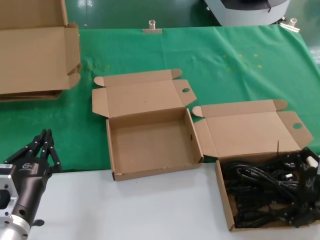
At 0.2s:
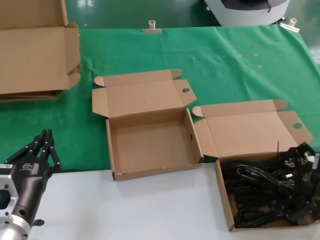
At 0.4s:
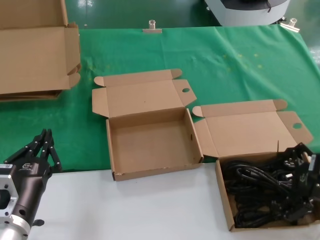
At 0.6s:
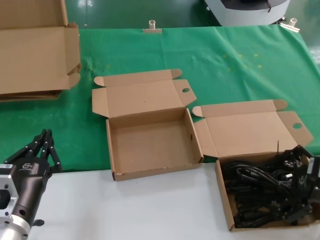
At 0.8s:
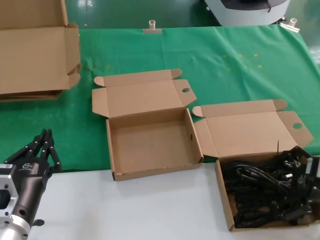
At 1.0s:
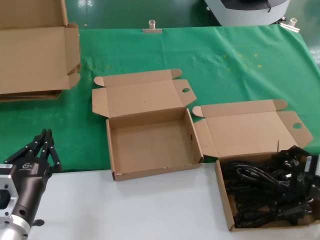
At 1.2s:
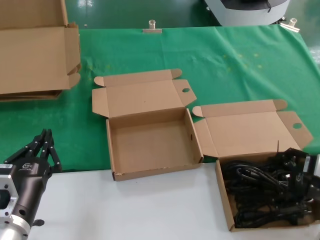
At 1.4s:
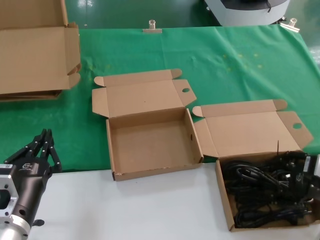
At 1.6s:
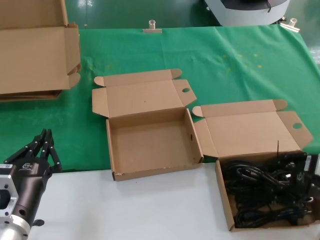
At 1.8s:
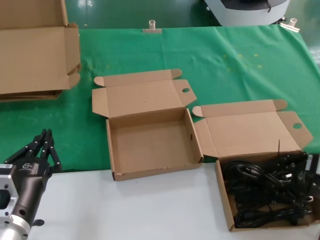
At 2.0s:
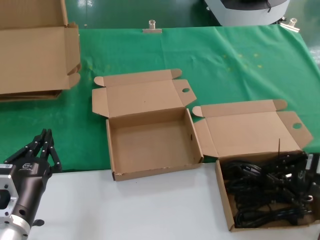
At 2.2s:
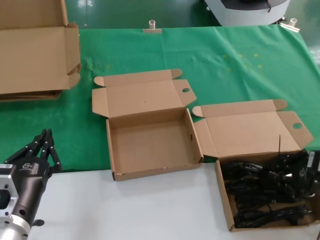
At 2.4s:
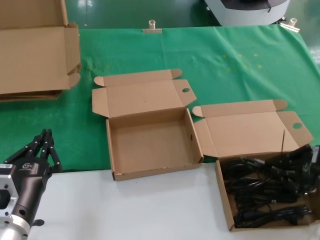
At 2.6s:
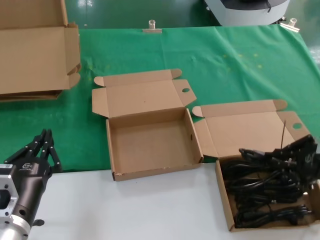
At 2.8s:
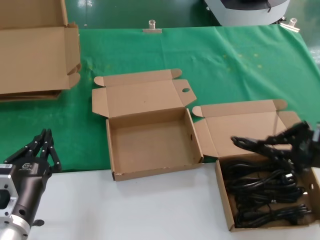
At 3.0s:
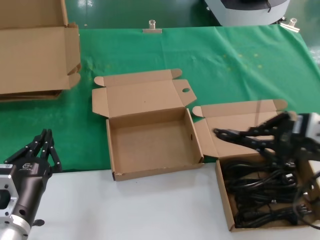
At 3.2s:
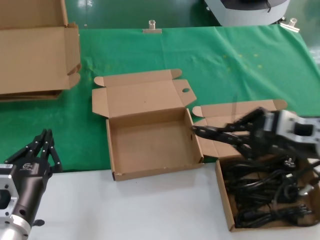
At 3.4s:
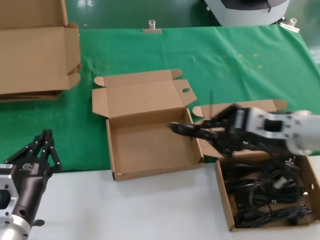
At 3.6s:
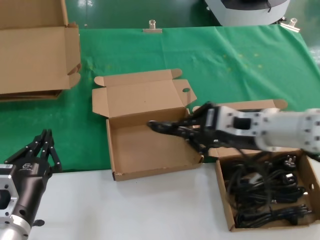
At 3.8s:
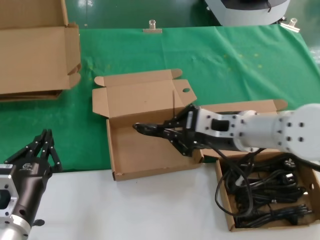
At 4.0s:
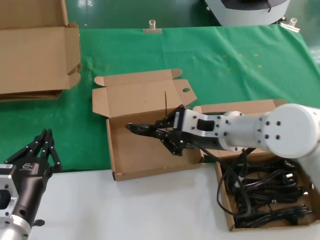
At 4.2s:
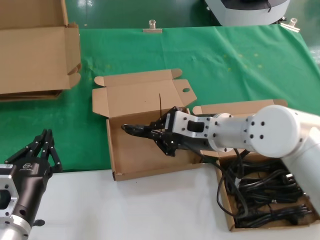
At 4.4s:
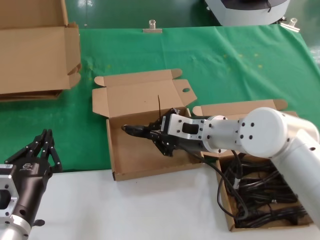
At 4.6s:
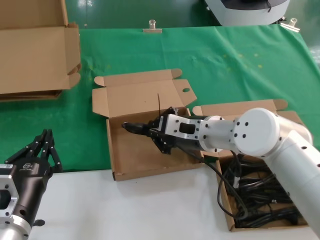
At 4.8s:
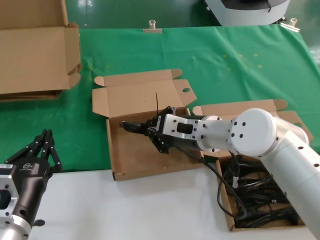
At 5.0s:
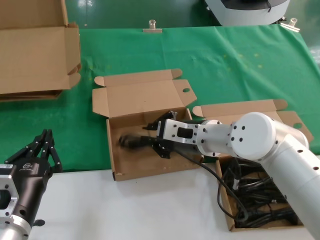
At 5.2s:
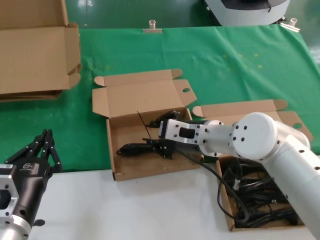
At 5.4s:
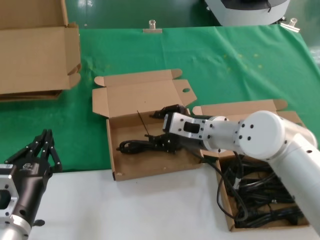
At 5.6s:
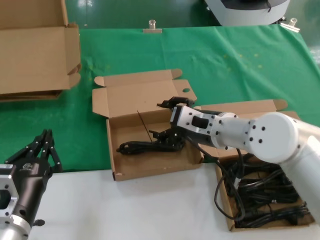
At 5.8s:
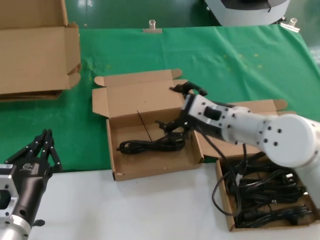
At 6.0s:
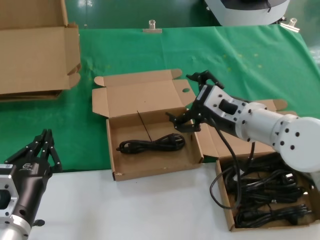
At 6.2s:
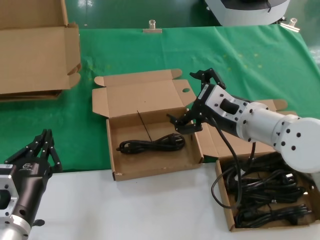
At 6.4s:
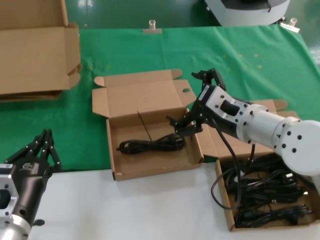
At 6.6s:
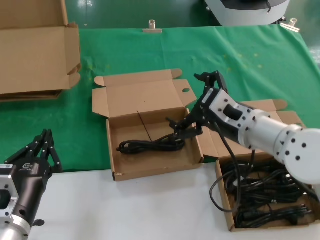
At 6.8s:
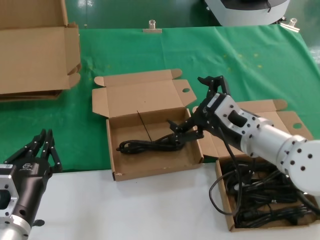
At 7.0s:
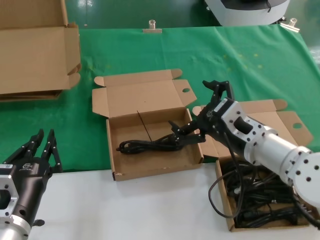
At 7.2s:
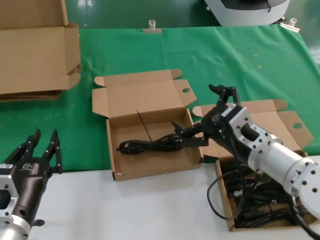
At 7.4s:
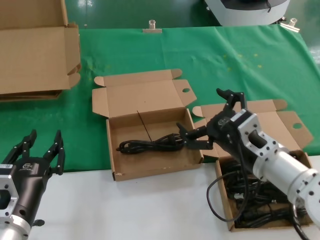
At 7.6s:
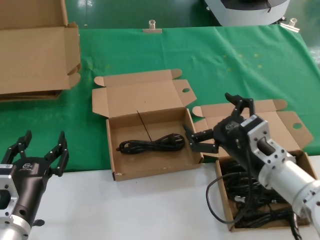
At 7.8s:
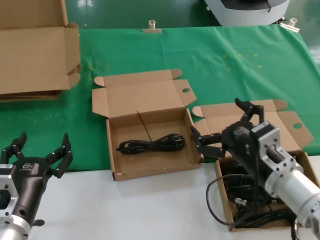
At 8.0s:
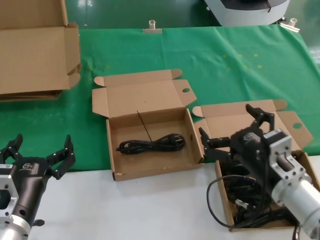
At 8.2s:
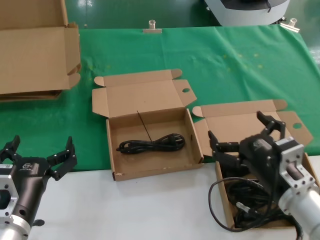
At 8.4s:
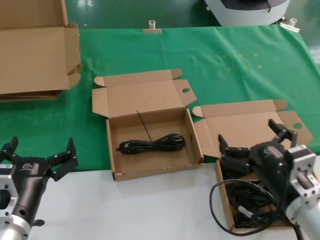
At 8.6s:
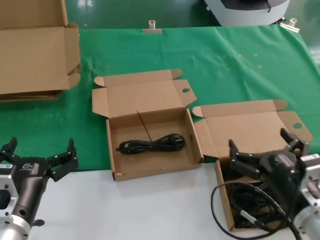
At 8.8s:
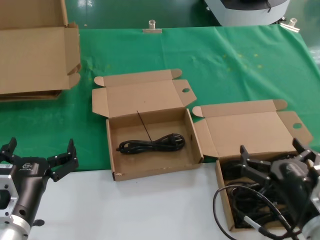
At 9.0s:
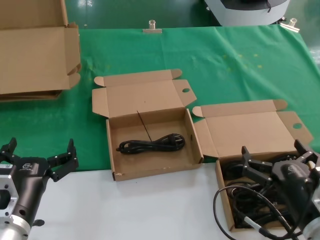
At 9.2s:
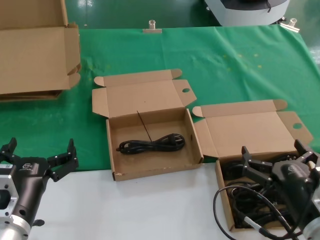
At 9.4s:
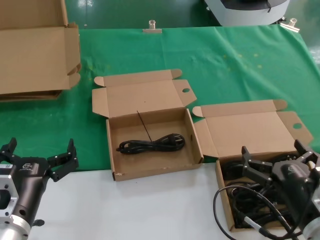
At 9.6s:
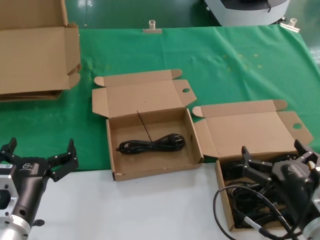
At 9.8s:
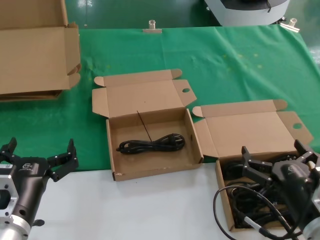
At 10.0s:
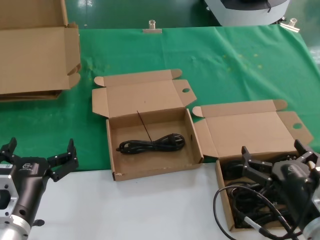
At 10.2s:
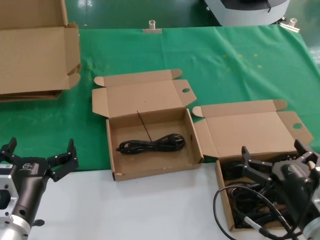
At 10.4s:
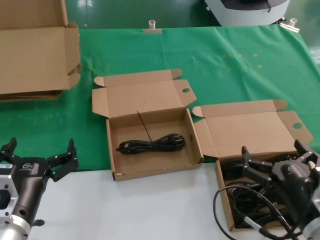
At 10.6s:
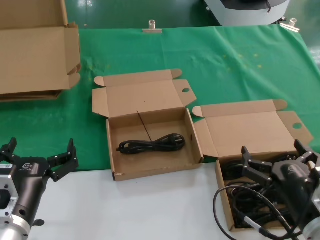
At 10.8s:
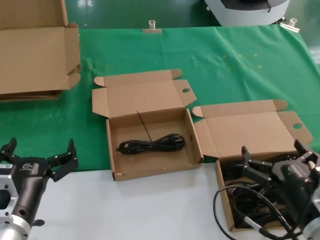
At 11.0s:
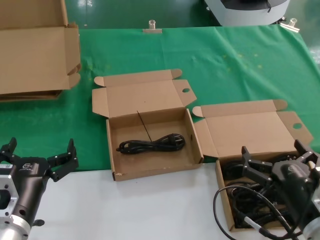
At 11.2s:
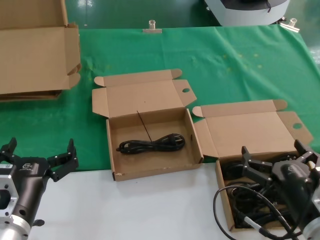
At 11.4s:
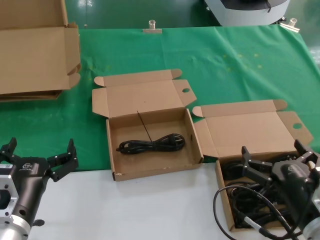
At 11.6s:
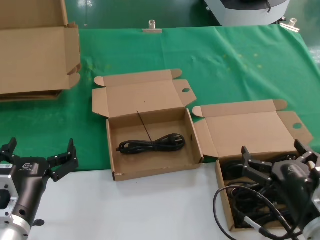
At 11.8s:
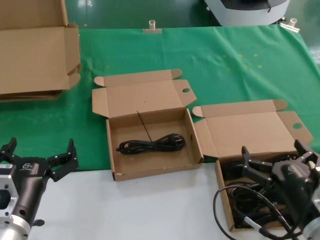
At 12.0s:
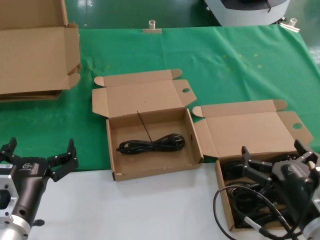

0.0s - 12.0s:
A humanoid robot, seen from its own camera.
Task of the whole recording: take the parts from the box containing them and put them into an empty box.
Step, 2.0s - 5.0s: Place the data cable in the another box.
0.0s - 1.6s: The hands move only a little.
1.6s - 3.0s: The right hand is displaced upward by roughly 10 cm.
3.0s - 4.4s: The right hand goes about 25 cm to the left and forward.
4.4s - 6.0s: The right hand shifts by about 5 cm.
6.0s - 7.6s: The right hand shifts about 10 cm downward and backward.
7.6s - 9.0s: The right hand goes some 15 cm backward, downward and to the right.
9.0s - 12.0s: Both hands stay about where they are.

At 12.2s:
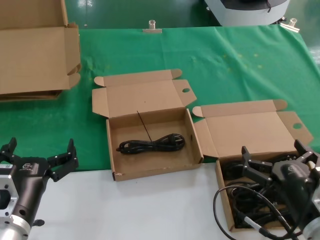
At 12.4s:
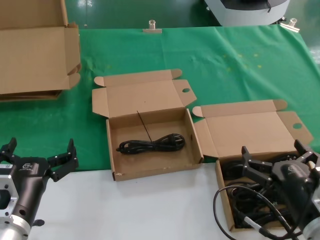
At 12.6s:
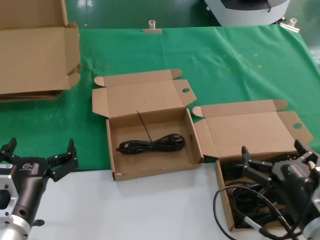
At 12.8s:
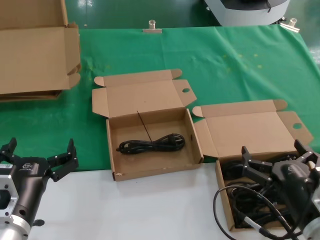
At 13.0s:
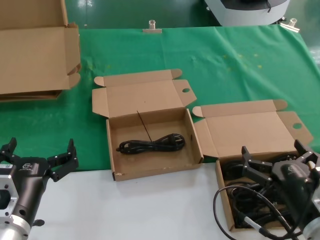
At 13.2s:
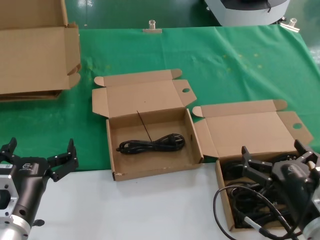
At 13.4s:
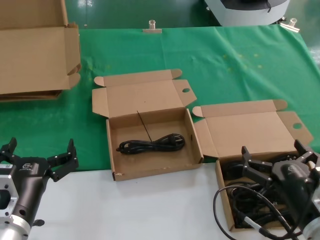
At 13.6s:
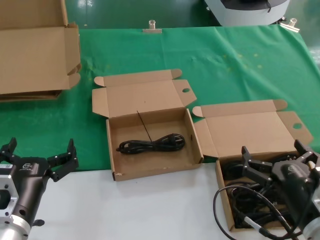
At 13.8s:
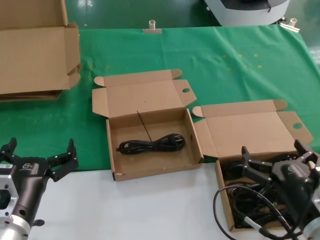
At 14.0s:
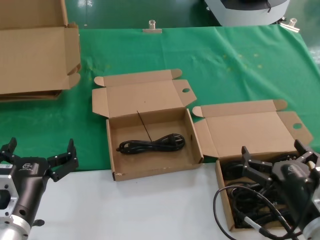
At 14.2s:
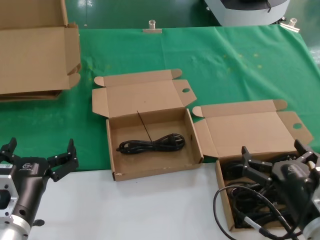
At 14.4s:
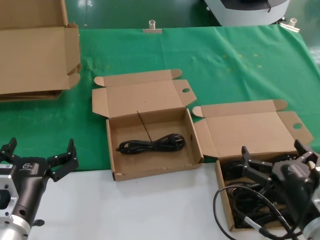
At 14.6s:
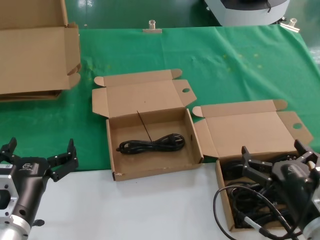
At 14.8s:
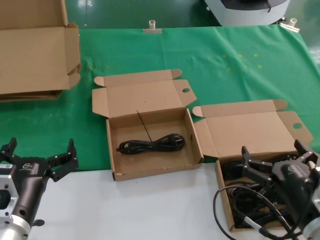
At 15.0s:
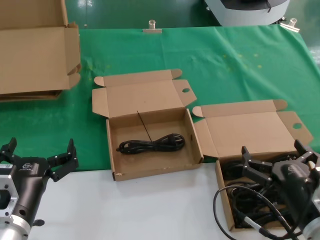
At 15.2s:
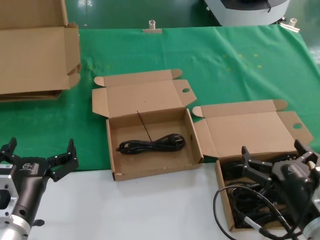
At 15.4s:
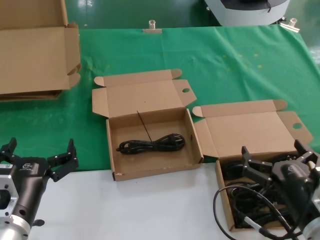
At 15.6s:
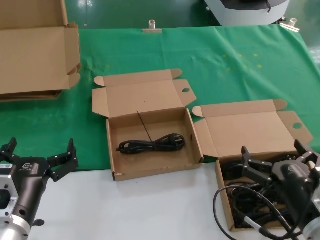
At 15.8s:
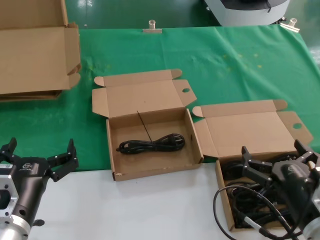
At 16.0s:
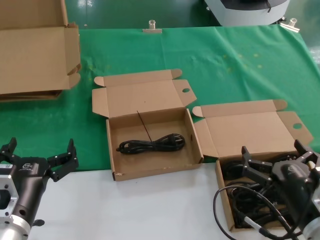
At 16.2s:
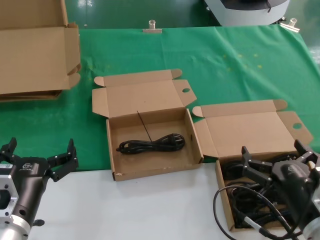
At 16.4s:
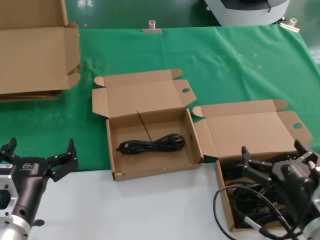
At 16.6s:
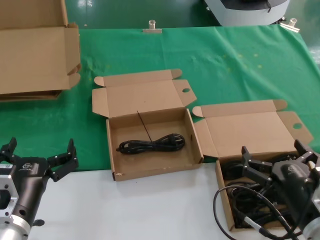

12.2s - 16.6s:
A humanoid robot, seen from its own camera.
Task of the whole recording: take the parts from the box containing them and put them into an empty box.
12.2s - 16.6s: Both hands stay about where they are.

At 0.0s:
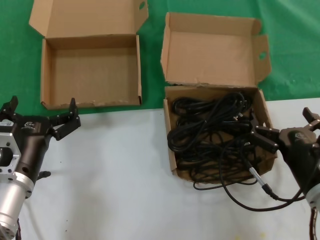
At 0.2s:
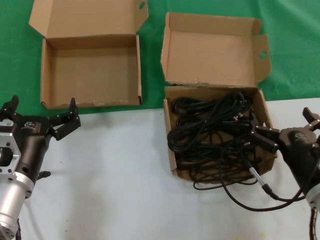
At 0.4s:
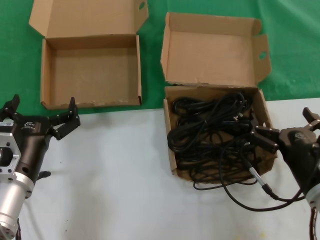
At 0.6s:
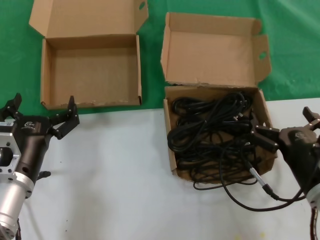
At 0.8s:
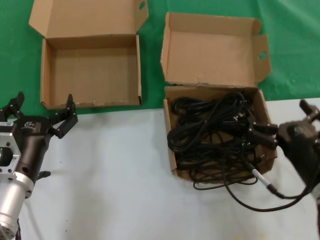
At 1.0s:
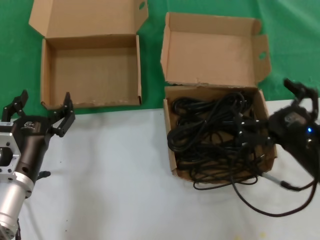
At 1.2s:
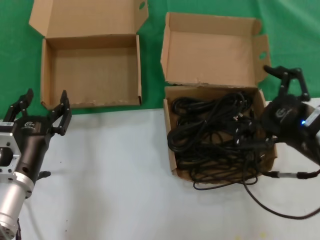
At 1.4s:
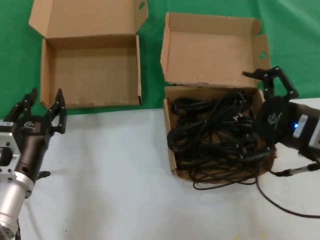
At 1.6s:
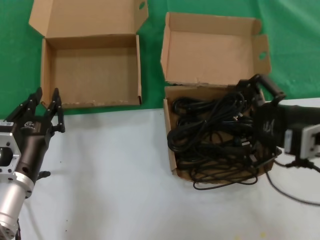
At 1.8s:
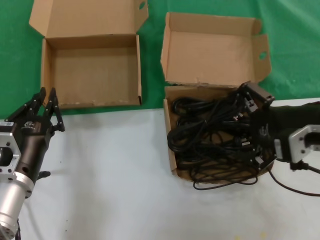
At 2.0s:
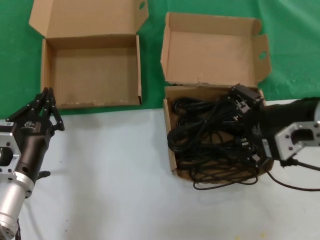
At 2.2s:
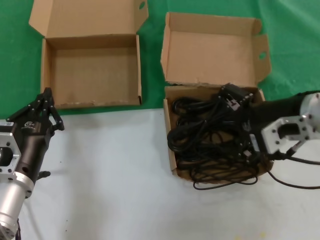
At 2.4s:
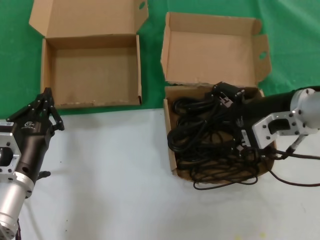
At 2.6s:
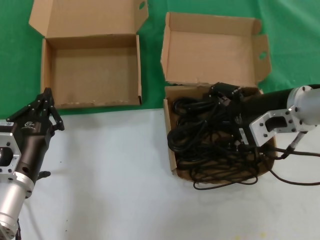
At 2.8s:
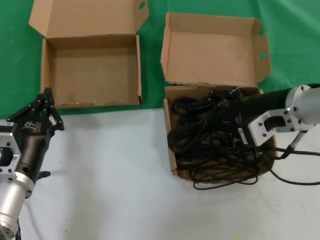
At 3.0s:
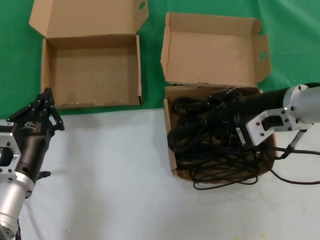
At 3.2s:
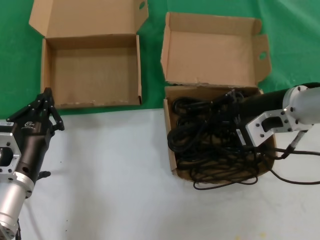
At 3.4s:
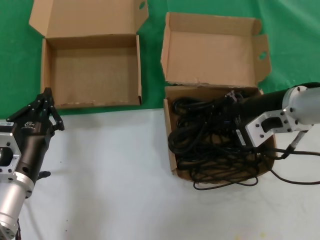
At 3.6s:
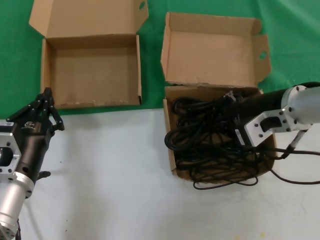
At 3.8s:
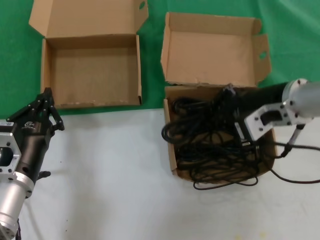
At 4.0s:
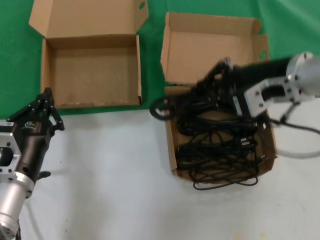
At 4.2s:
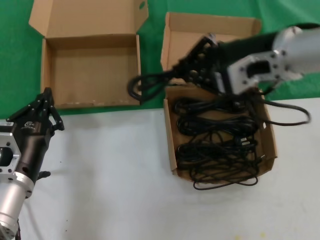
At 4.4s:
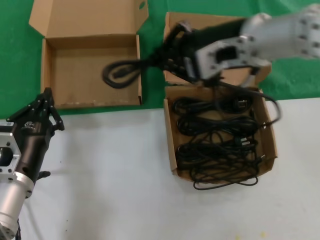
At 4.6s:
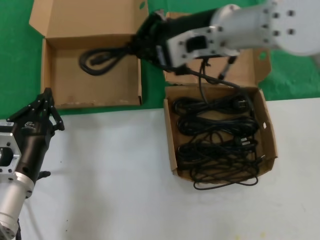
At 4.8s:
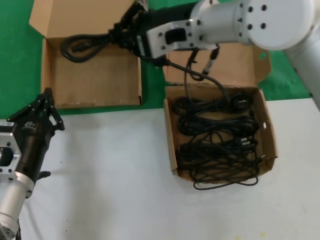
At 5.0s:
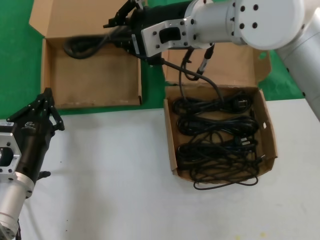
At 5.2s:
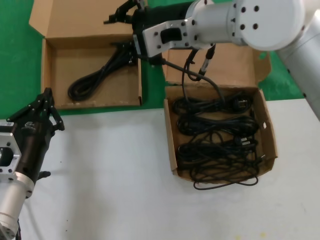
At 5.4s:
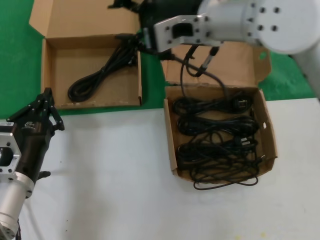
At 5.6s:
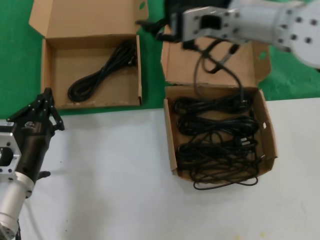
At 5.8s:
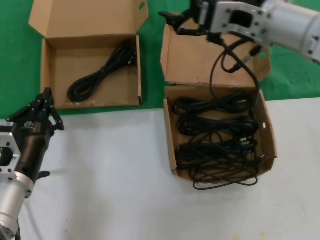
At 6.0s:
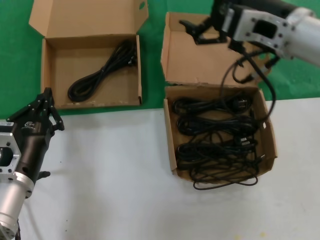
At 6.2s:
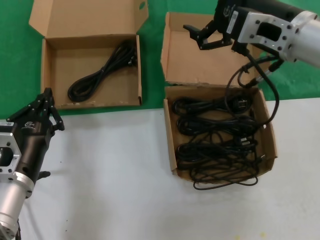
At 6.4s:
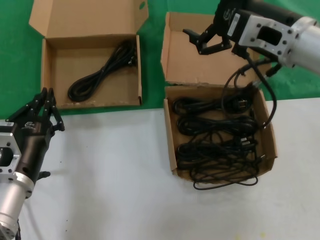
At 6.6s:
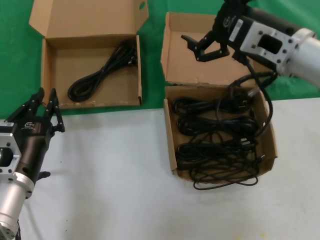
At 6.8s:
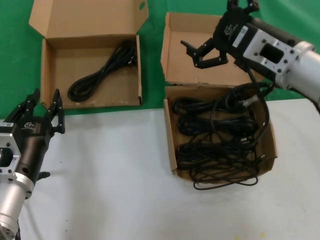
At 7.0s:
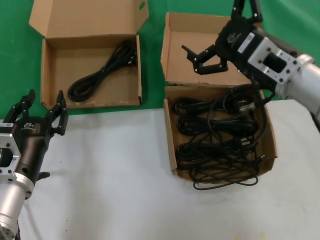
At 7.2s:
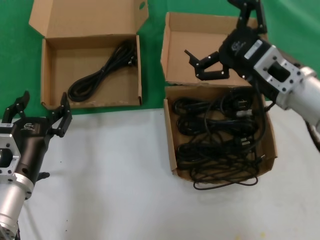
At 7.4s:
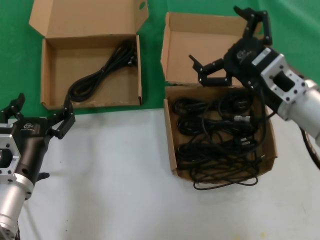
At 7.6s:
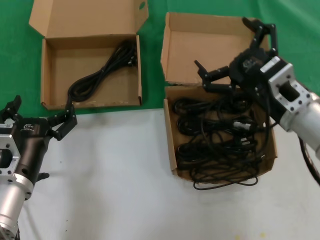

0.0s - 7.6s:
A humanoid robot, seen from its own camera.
Task of the whole recording: take the parts from the box containing them and put them into an empty box.
Step, 0.0s - 3.4s: Grasp the data cable.
Step, 3.8s - 5.0s: Place the data cable in the another box.
0.0s - 1.6s: The right hand heads upward, covering approximately 15 cm.
1.6s - 3.0s: The right hand travels forward and to the left by about 10 cm.
3.0s - 4.6s: The right hand shifts about 15 cm to the left and upward.
4.6s - 6.0s: The right hand heads to the right, covering roughly 10 cm.
6.0s - 7.6s: The right hand heads downward, covering approximately 15 cm.
